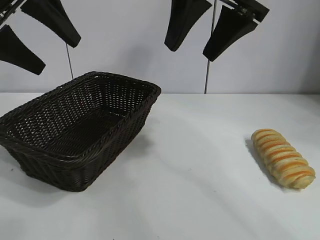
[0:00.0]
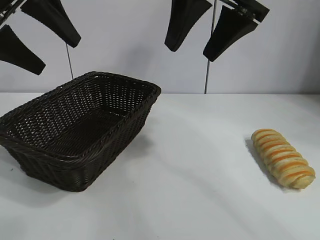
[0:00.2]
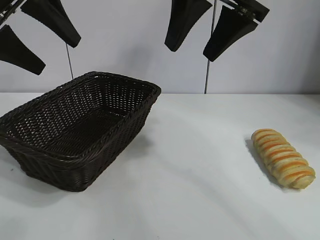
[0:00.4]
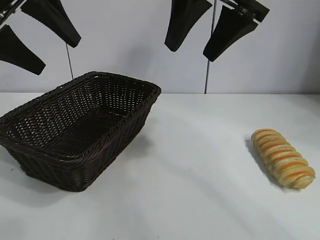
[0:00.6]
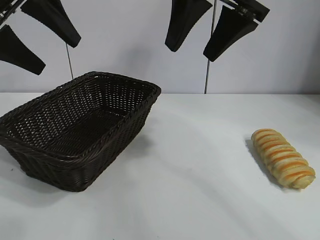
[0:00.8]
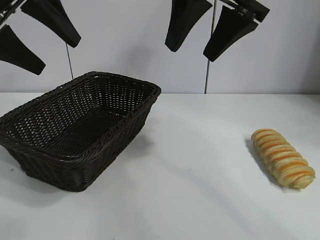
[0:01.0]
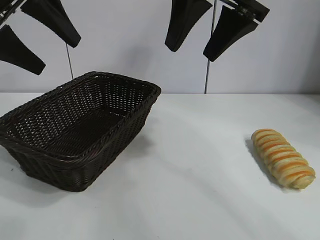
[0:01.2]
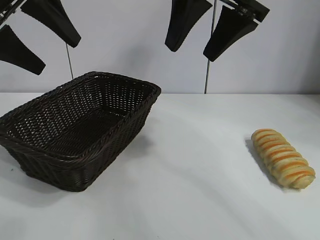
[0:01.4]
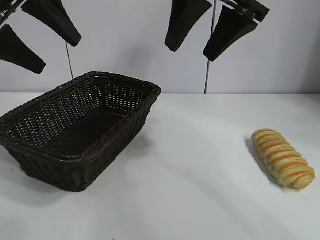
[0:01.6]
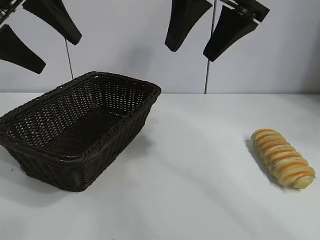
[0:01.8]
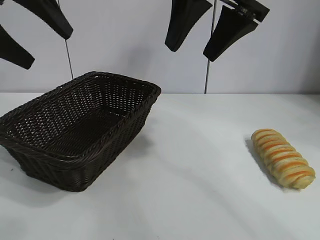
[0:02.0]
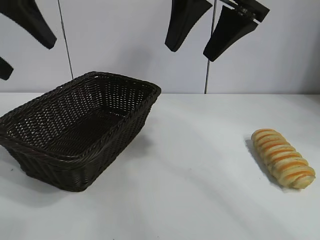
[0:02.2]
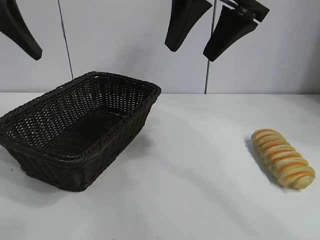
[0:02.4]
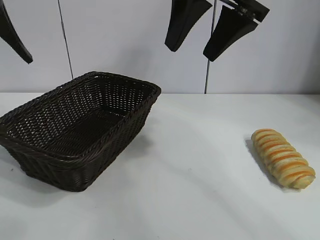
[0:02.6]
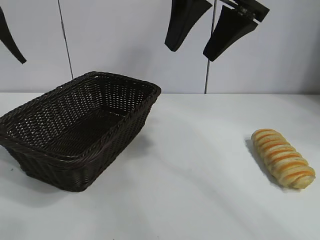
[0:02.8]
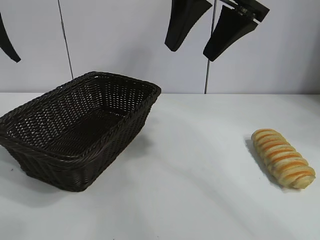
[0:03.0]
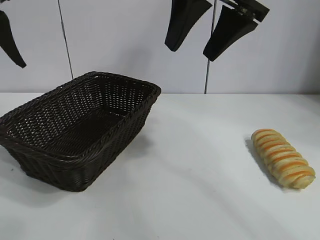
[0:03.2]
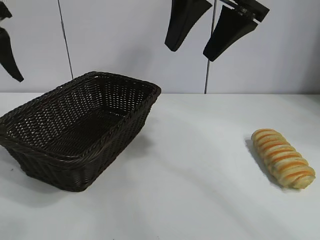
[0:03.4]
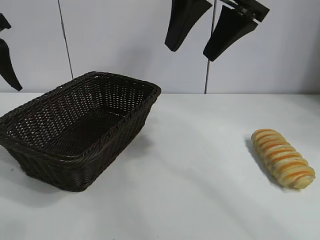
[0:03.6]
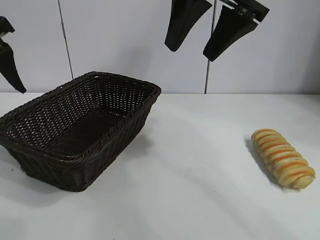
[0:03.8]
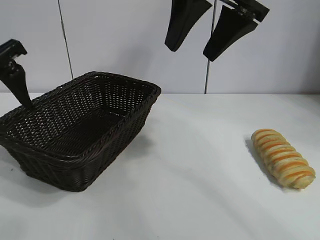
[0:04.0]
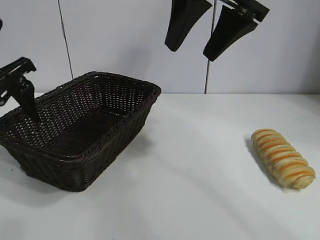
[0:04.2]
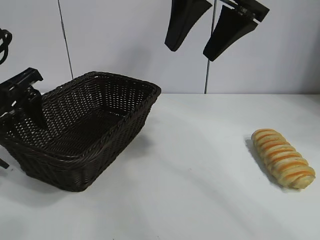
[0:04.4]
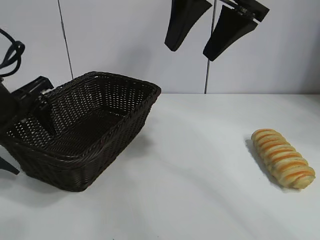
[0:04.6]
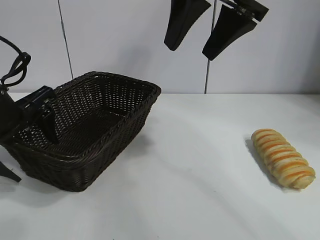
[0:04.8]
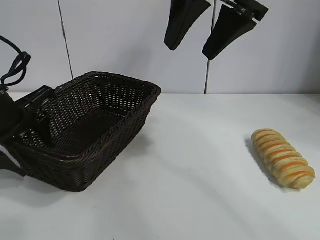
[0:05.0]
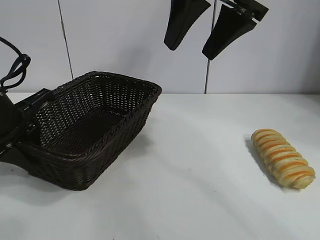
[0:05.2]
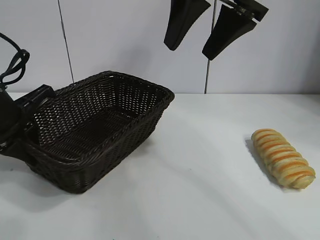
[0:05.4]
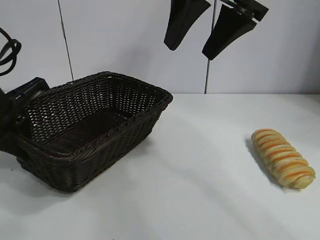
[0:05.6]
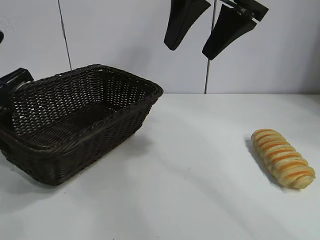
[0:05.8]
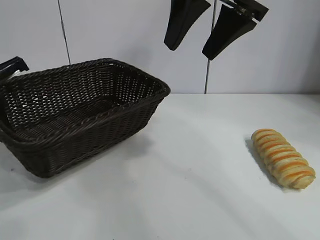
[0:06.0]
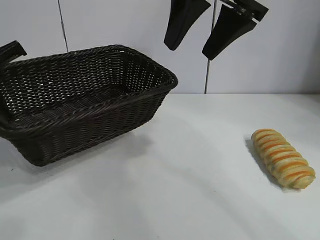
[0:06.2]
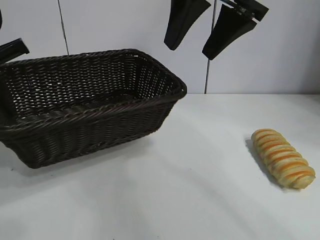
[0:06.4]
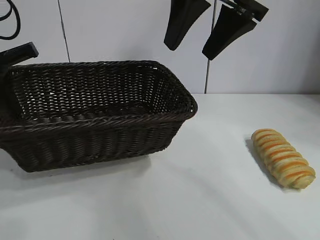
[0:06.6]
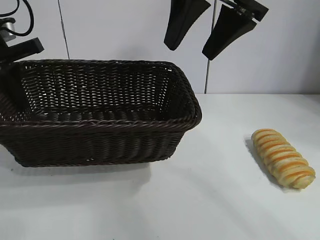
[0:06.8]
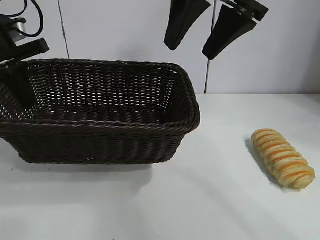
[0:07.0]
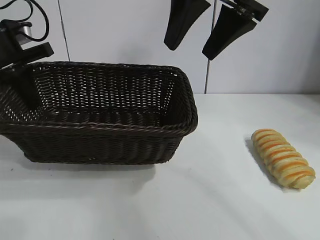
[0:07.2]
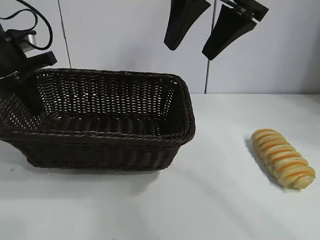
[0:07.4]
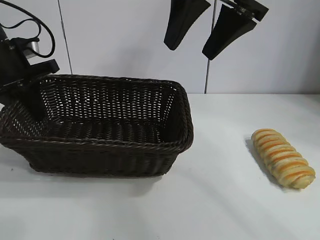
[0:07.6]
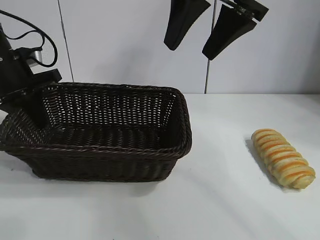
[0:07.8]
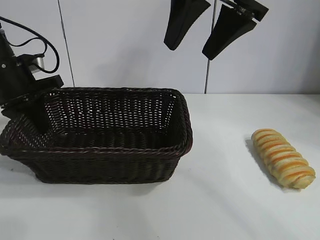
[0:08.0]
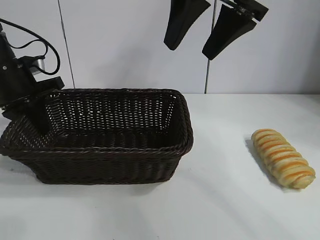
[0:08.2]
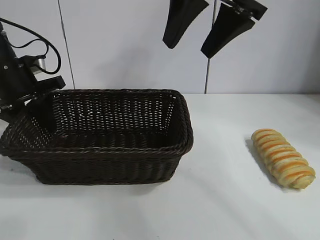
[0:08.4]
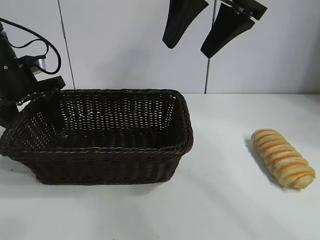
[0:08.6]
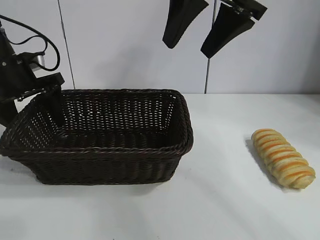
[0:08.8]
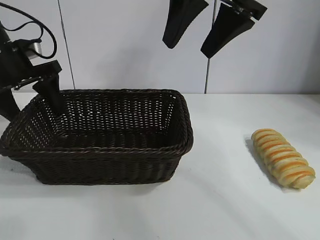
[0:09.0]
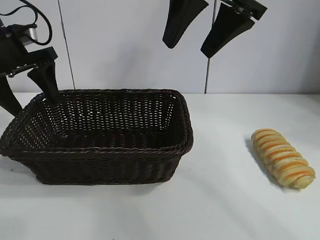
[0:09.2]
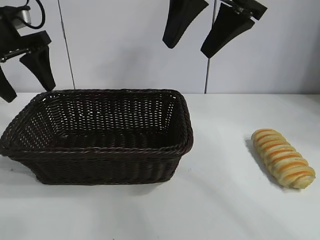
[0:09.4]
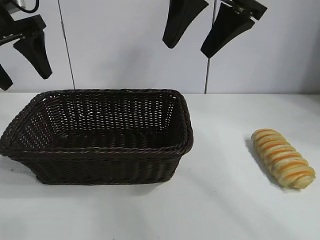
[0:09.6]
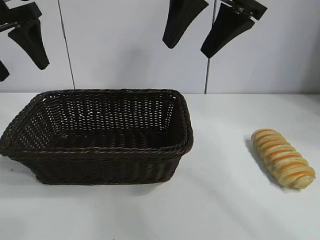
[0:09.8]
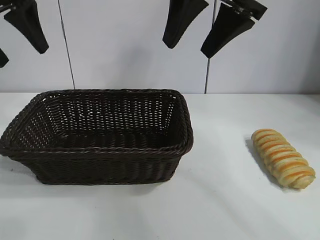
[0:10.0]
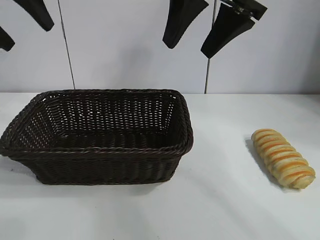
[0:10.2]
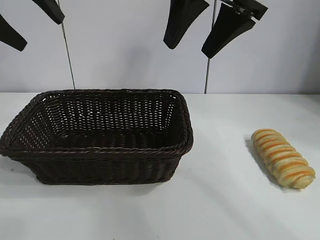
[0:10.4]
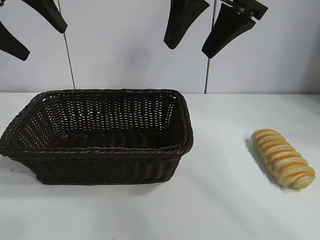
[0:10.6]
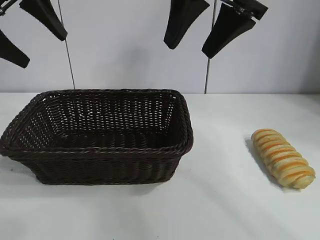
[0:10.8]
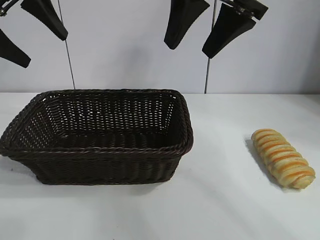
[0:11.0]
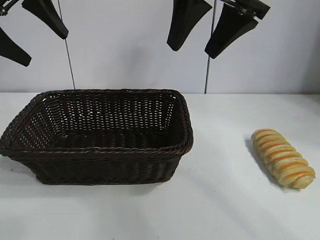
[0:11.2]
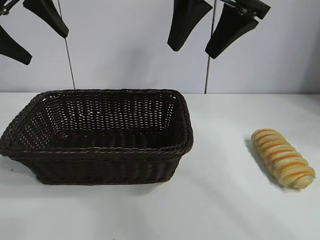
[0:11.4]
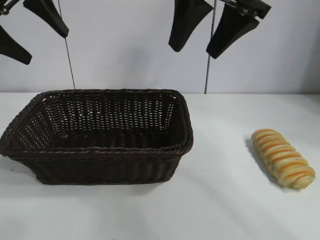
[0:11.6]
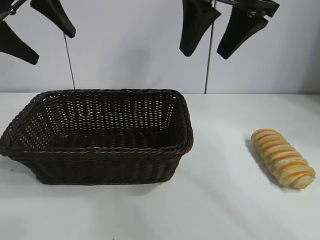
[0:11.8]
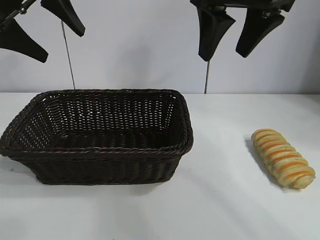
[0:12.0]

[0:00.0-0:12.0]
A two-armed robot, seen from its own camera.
Task of the whole recording: pick up the long bread and put it into the basket.
Step, 0:01.6 to 0:05.2: Grasp the basket with the left gripper.
Step, 0:05.4 to 0:08.6: Place the basket in the center of the table with the left gripper.

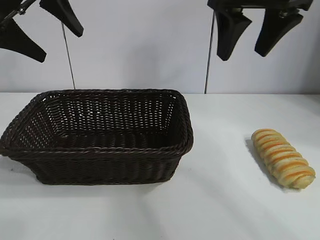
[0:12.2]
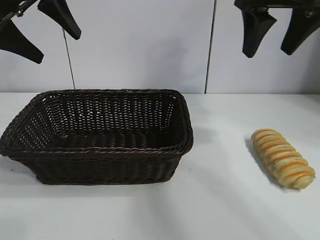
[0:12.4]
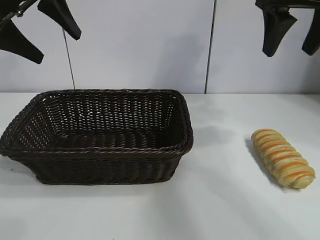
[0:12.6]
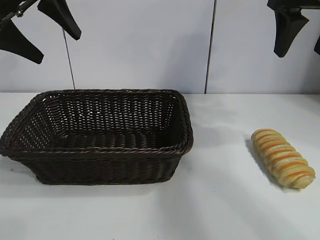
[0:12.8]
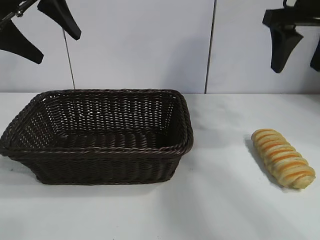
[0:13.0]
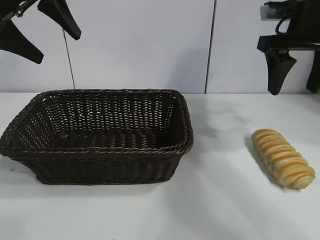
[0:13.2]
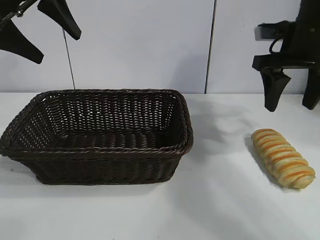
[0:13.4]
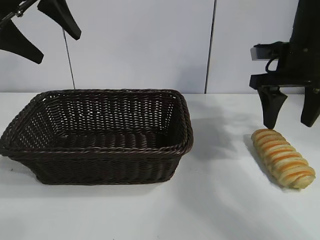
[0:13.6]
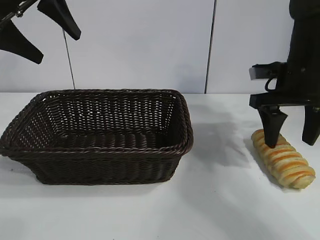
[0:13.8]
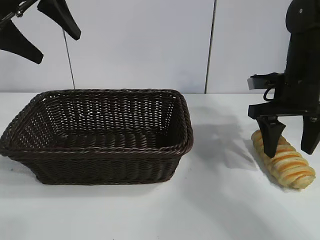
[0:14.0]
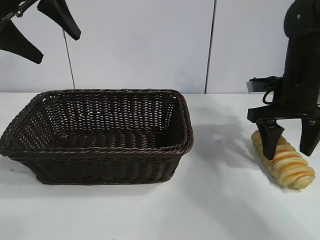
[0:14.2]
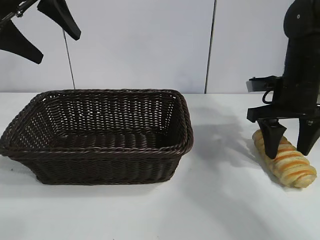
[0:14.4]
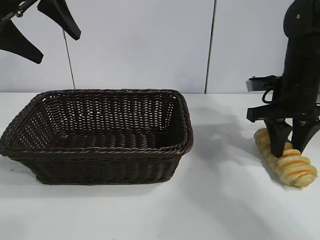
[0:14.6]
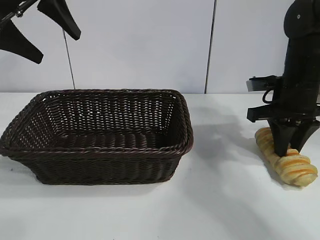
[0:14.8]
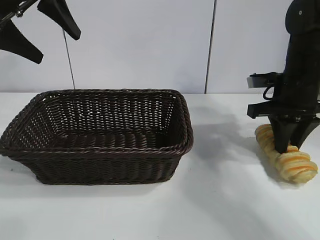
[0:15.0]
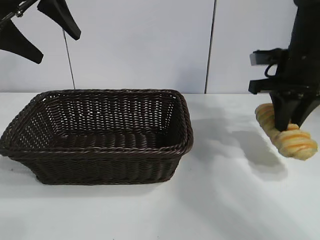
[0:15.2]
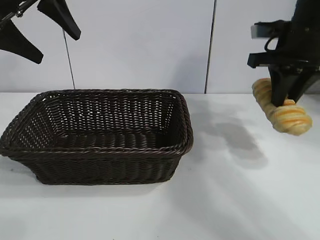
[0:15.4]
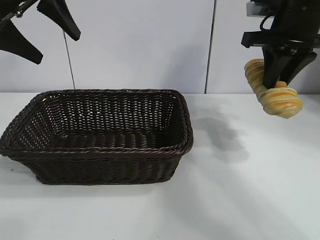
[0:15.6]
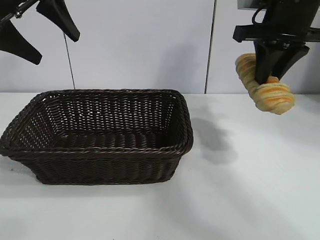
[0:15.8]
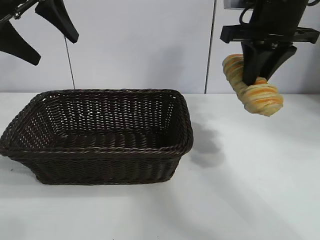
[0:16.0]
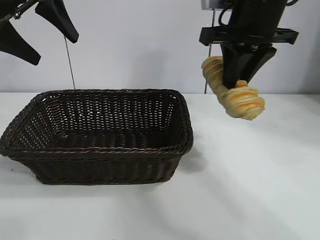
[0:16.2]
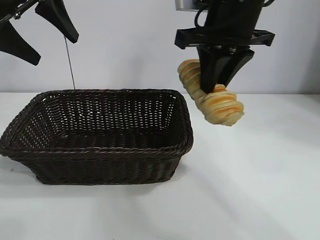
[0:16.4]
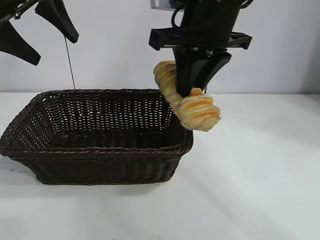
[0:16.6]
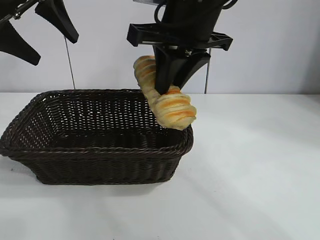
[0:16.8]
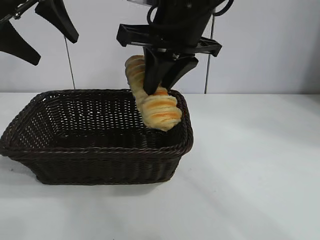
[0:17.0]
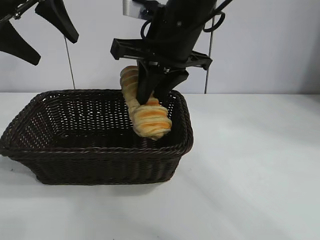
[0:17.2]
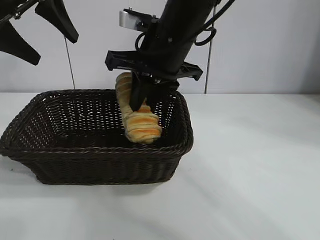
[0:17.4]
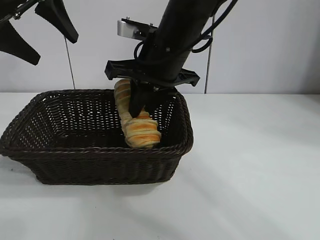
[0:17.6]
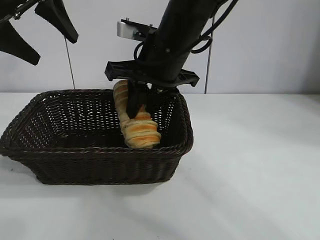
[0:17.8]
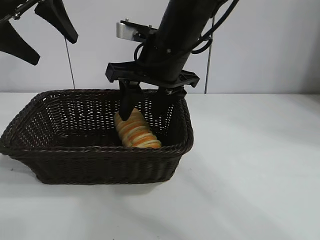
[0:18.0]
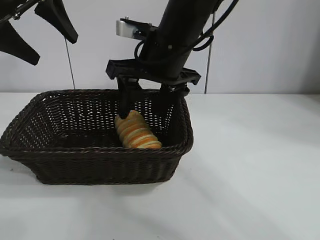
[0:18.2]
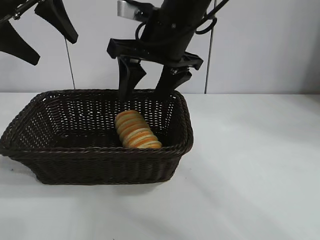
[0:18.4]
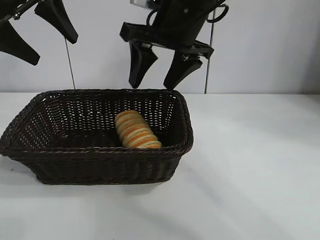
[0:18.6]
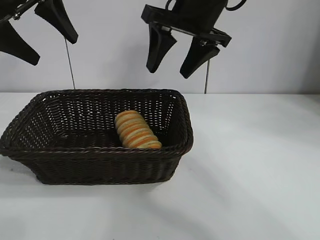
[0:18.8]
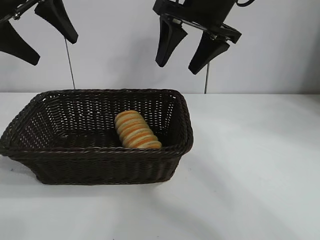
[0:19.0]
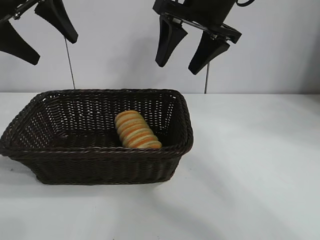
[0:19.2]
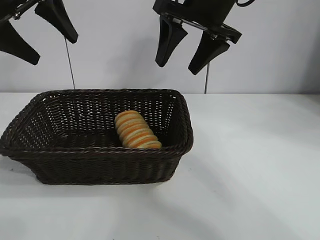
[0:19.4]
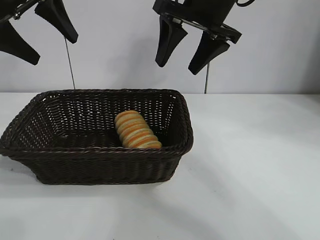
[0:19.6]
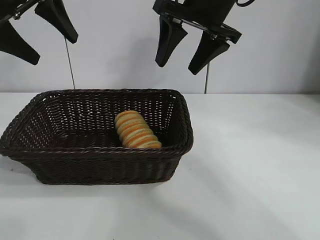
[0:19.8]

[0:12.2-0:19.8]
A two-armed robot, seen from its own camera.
Task of the whole recording: pick up the long bread and put it into the basket.
Step, 0:12.2 to 0:14.8: Grasp the long bread with right gripper.
Step, 0:15.0 to 0:18.2: Place the long bread in the basket with right gripper.
